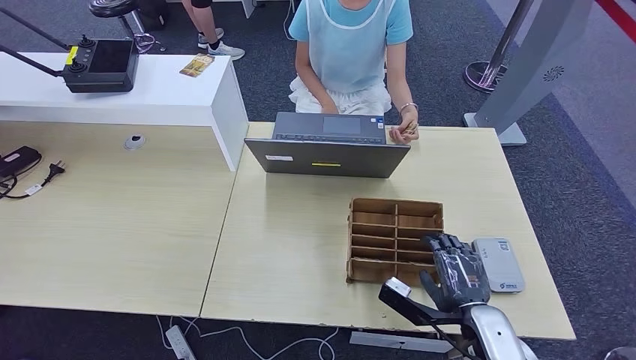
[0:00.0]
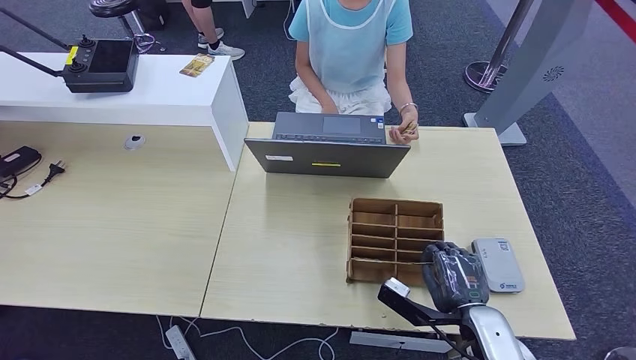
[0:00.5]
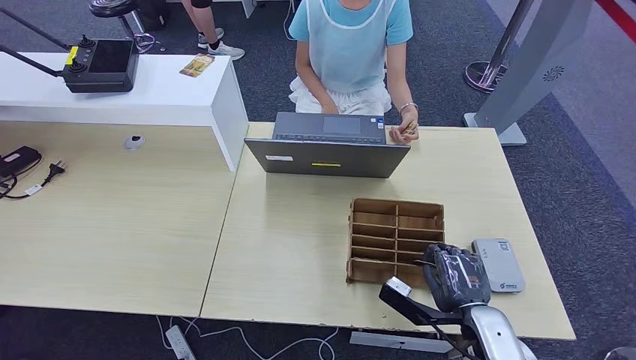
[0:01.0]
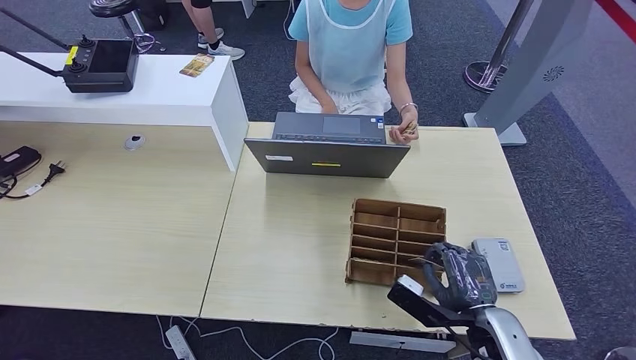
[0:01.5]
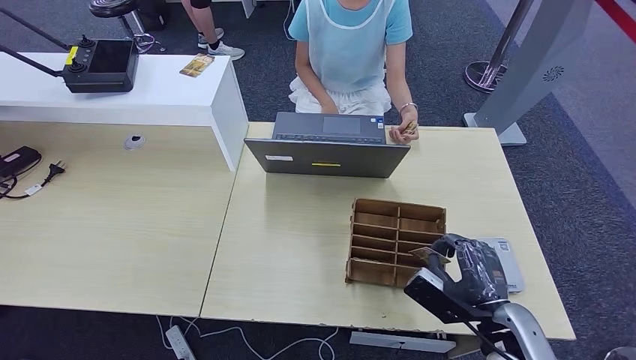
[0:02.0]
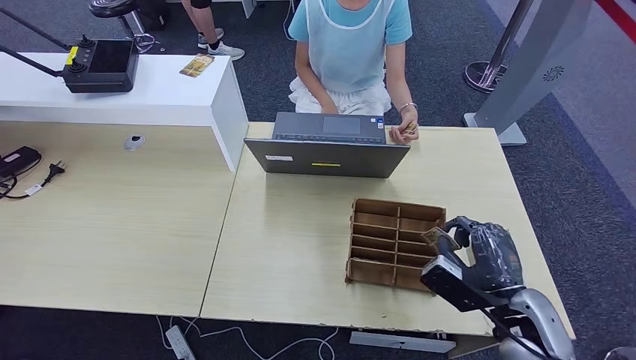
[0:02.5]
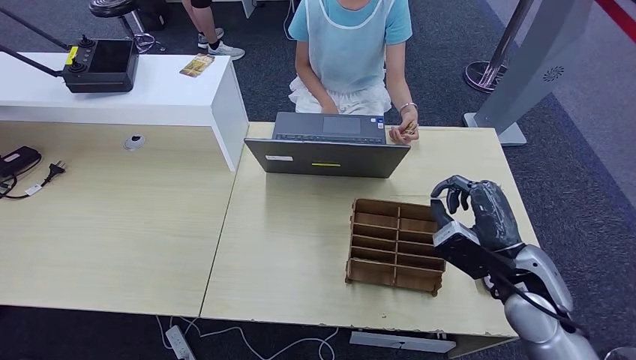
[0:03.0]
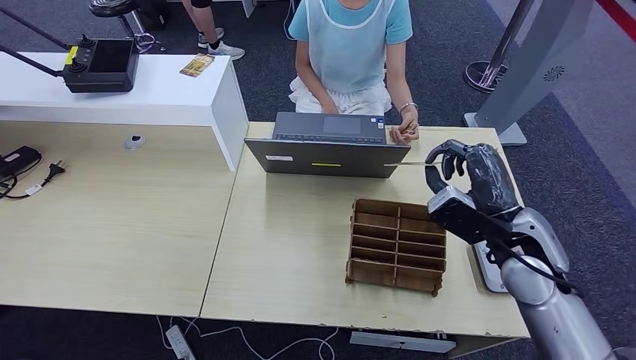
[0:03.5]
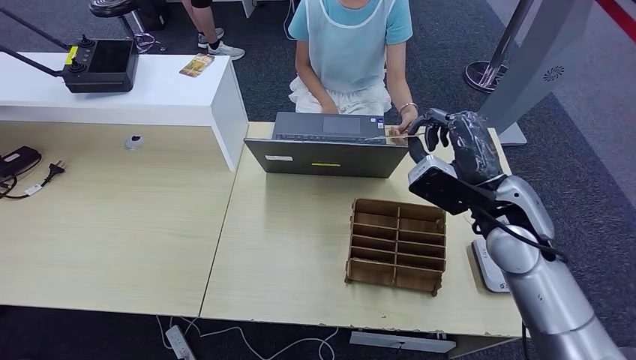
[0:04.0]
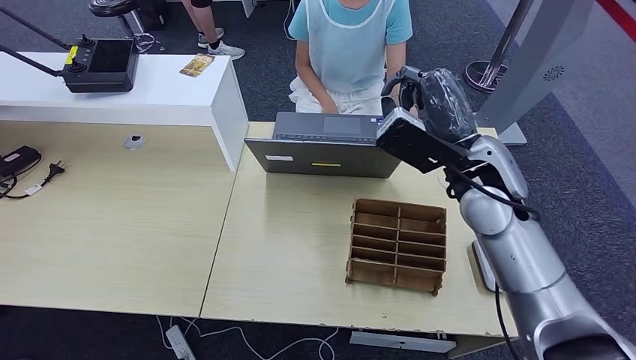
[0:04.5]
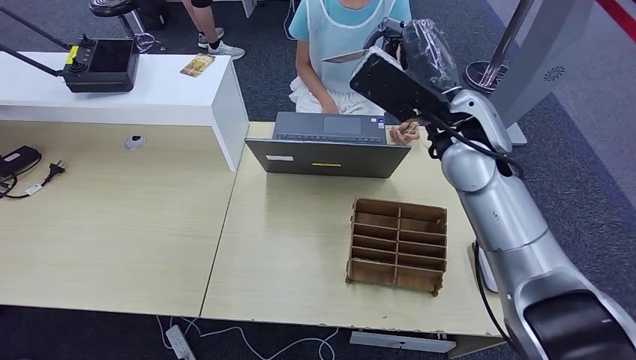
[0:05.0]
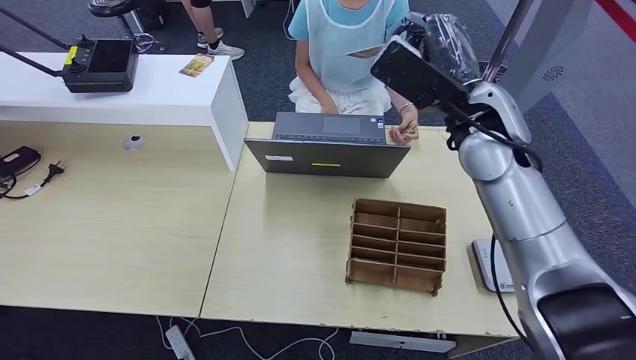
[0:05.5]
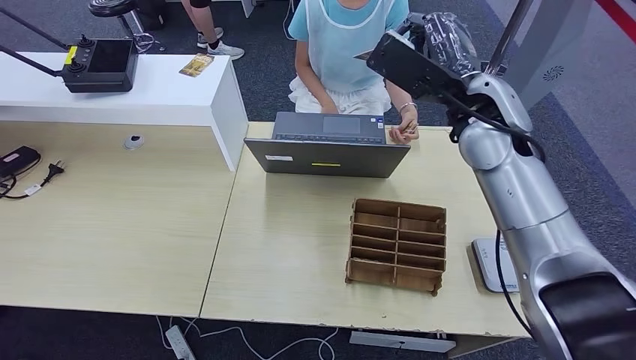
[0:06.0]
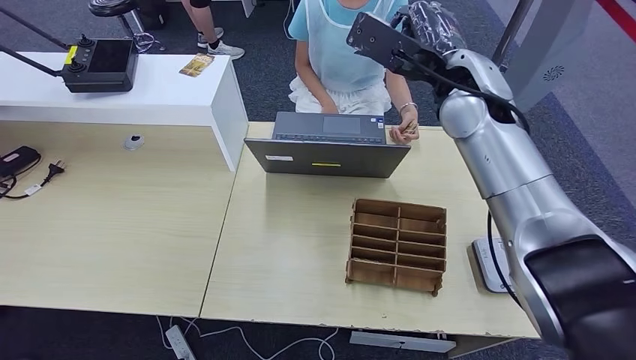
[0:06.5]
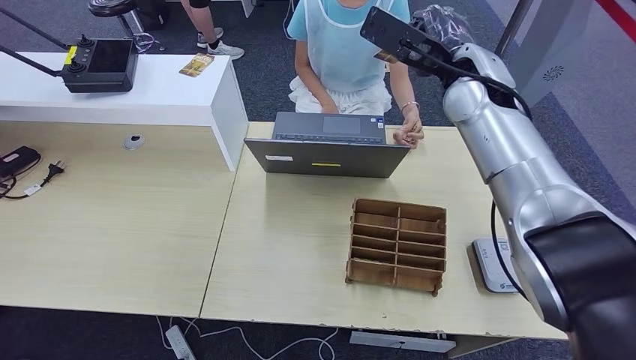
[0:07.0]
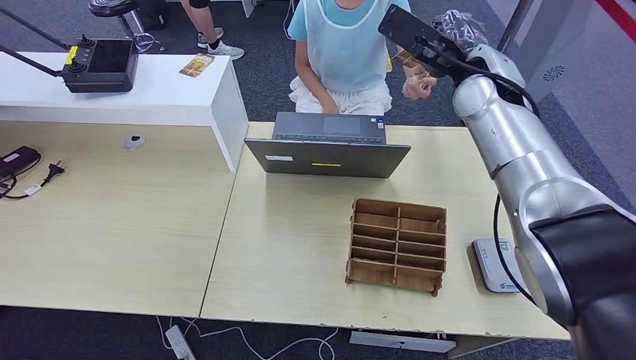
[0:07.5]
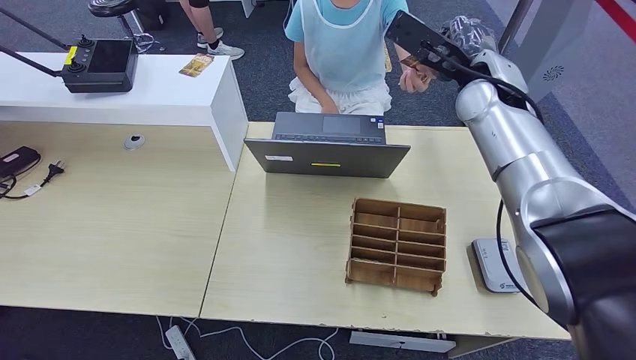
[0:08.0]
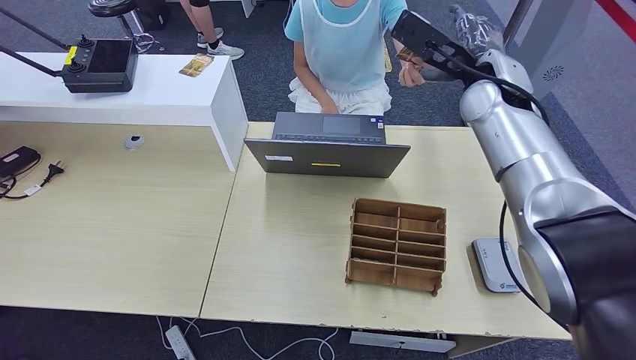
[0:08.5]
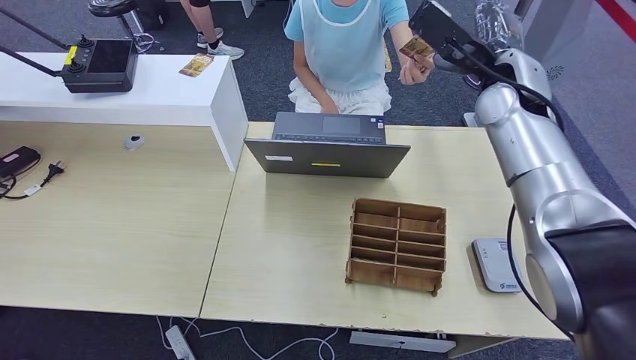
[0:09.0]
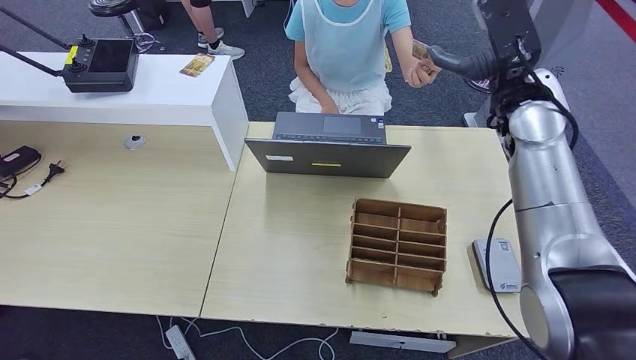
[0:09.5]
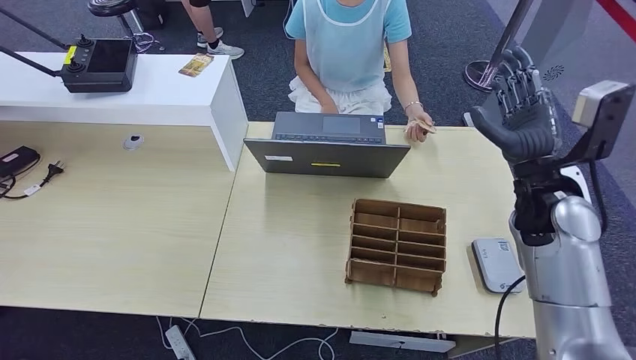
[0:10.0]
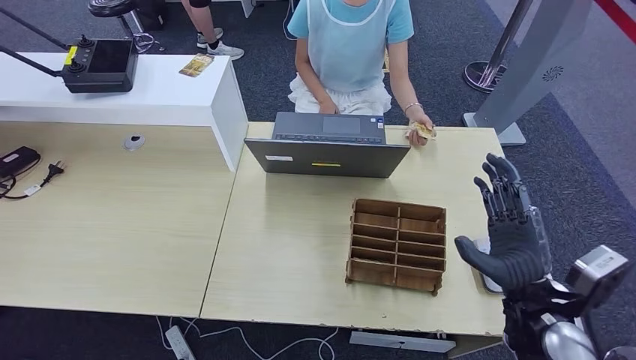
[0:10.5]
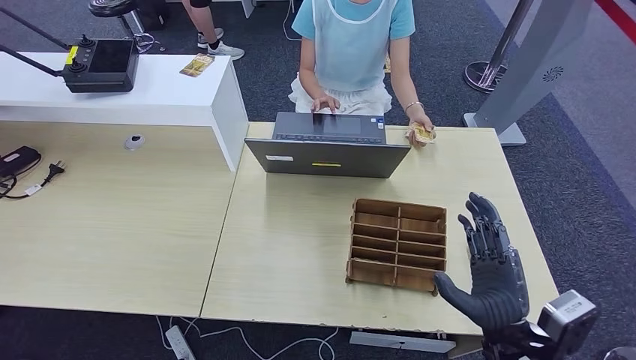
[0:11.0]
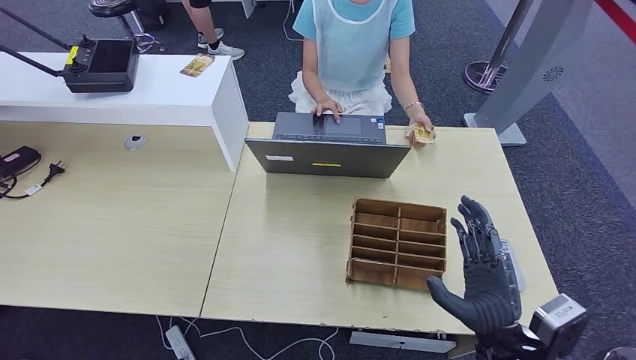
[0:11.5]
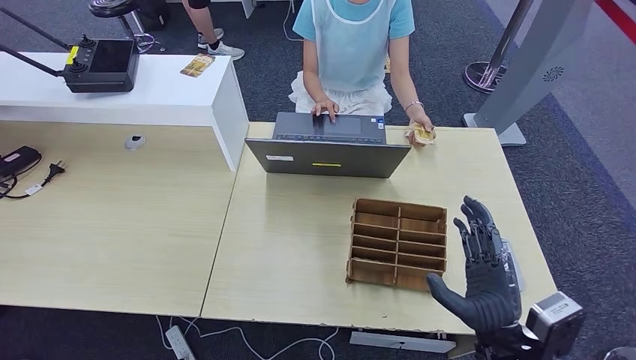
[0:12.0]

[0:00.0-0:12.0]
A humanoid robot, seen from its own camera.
Step, 0:00.0 to 0:04.0: Pick up the room key from the key card box.
Step, 0:04.5 to 0:12.0: Hand the room key to the person.
0:02.0 to 0:04.0: The right hand goes some 20 cm upward and forward.
0:04.0 to 0:06.0: The right hand heads upward, forward and to the left, covering some 15 cm.
0:06.0 to 0:08.0: The right hand is displaced forward by some 5 cm.
0:08.0 to 0:10.0: The right hand moves backward, downward and to the right, approximately 20 cm.
0:10.0 to 0:12.0: The right hand goes about 25 cm backward and downward.
